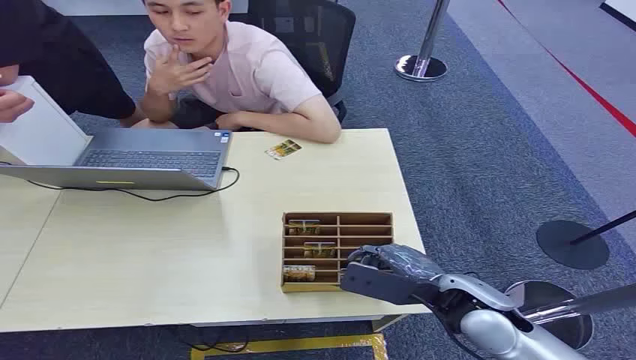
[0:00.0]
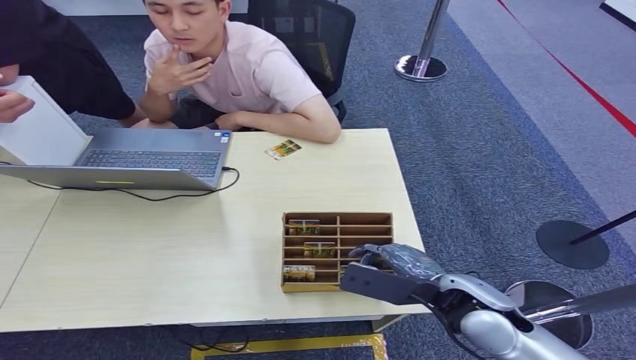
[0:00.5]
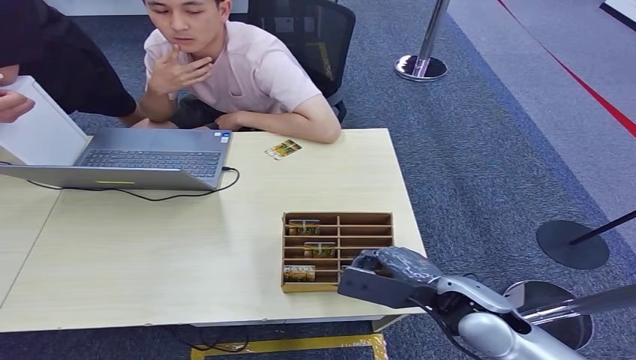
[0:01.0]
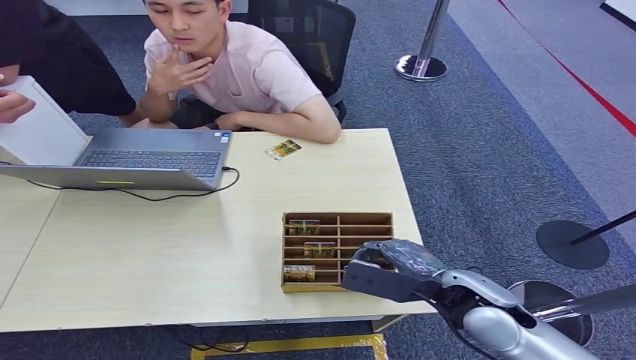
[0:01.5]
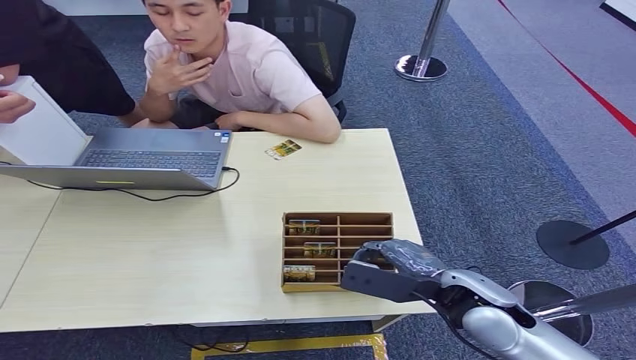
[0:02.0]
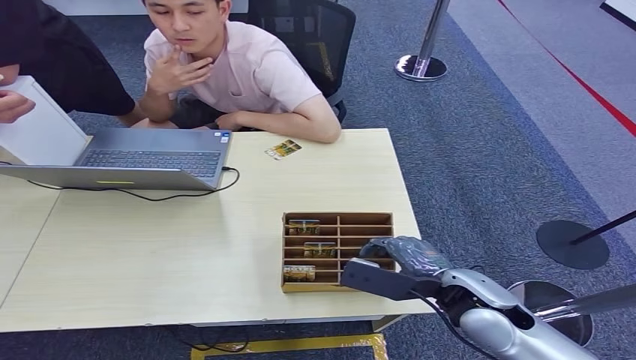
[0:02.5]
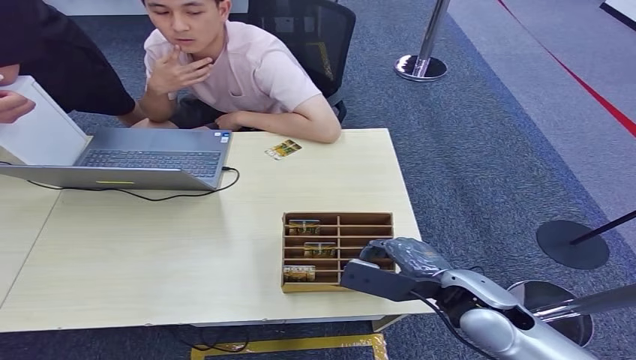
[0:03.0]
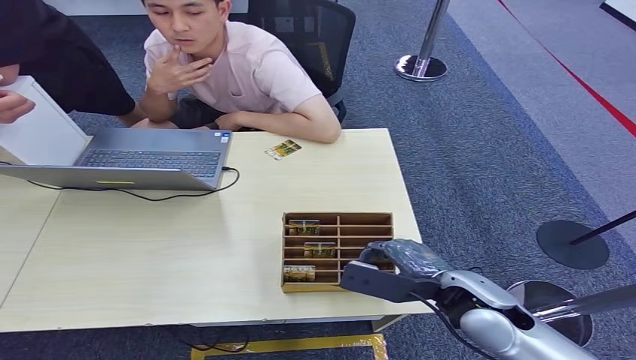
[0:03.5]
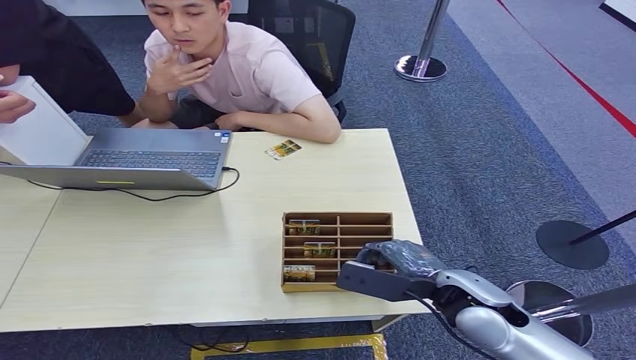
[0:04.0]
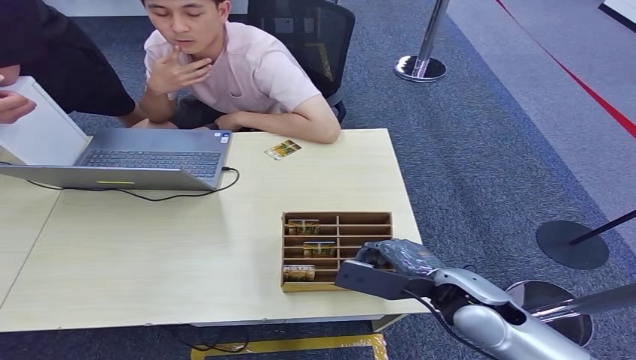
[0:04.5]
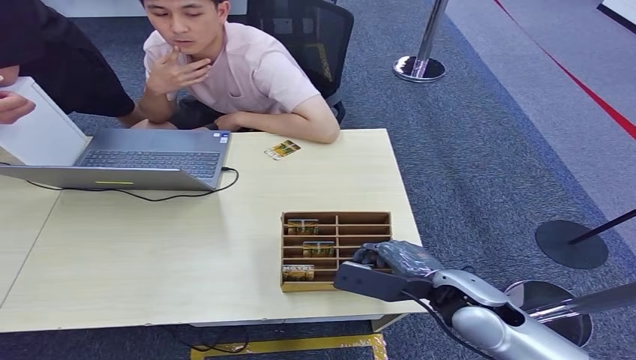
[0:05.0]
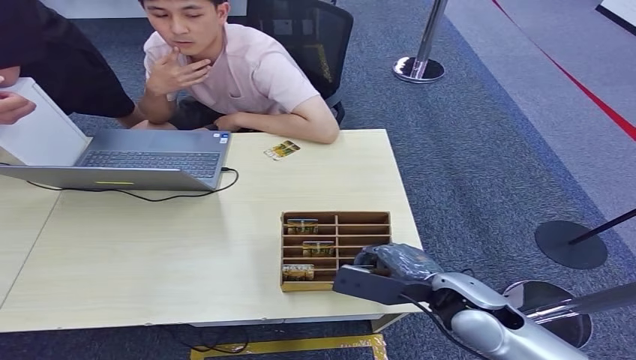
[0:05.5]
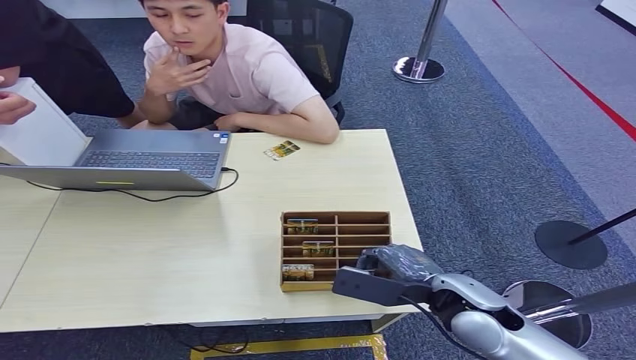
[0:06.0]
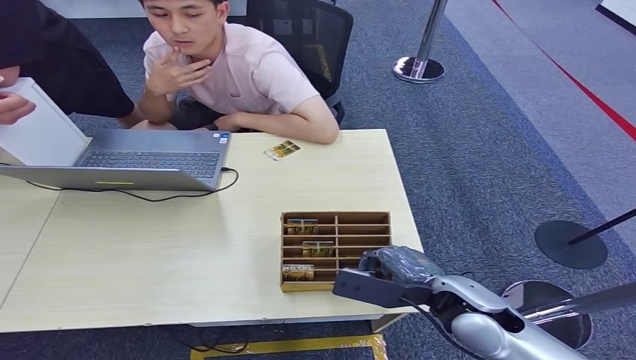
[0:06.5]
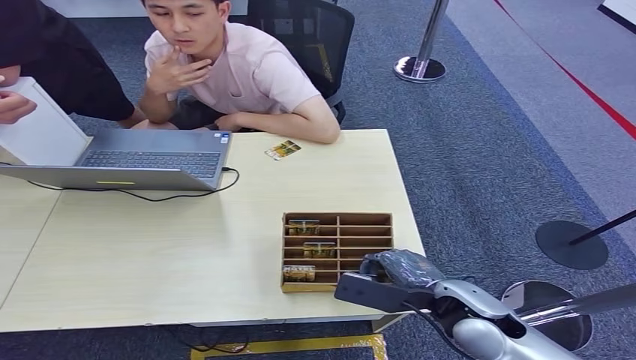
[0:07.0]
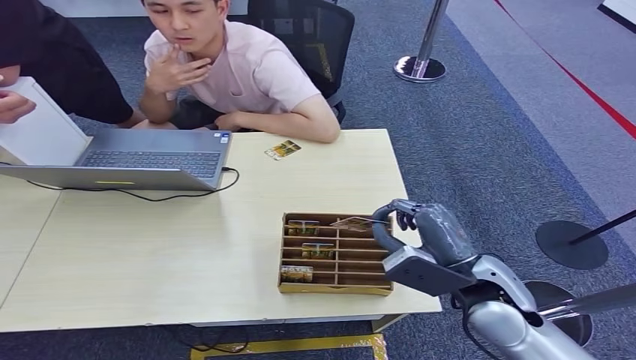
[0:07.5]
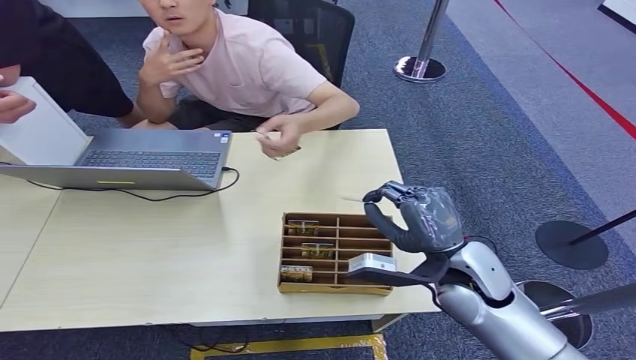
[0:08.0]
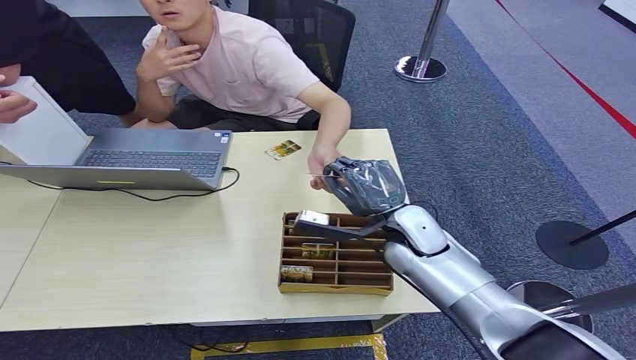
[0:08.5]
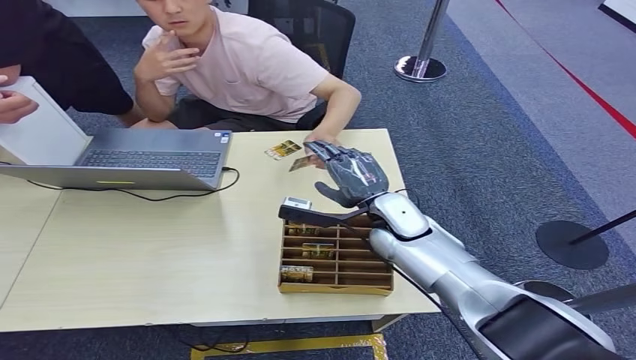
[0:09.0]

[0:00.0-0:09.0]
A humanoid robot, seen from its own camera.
Step, 0:00.0 to 0:07.5: Pick up the room card from the card holder.
Step, 0:08.5 to 0:09.0: Hand the room card to the target.
0:02.0 to 0:07.0: Both hands stay about where they are.
0:07.0 to 0:09.0: The right hand heads forward and to the left, covering some 20 cm.
